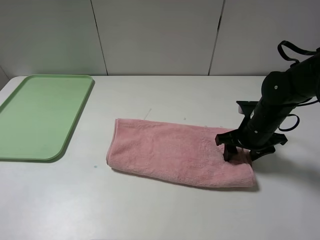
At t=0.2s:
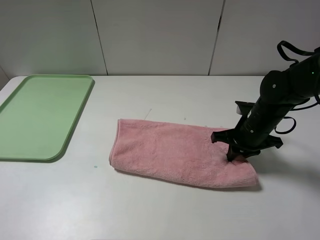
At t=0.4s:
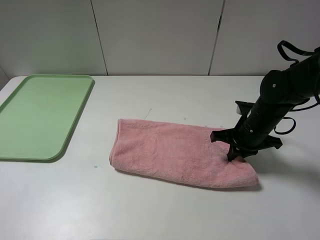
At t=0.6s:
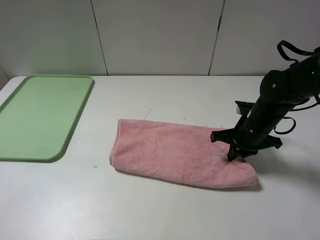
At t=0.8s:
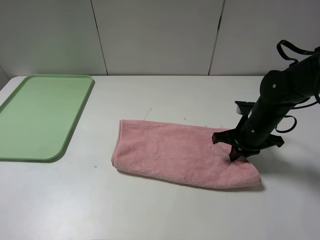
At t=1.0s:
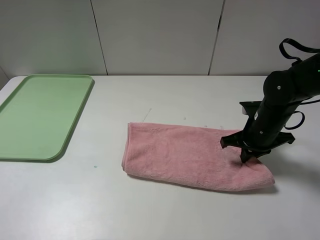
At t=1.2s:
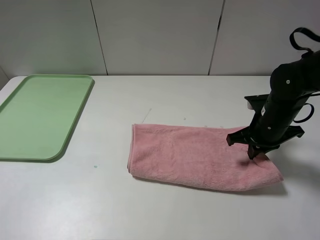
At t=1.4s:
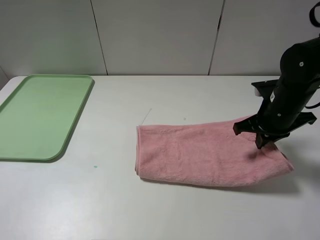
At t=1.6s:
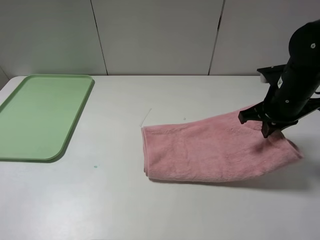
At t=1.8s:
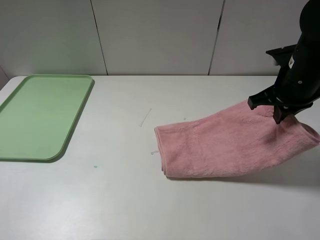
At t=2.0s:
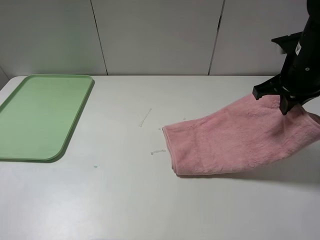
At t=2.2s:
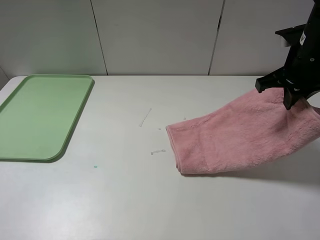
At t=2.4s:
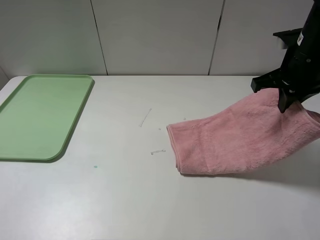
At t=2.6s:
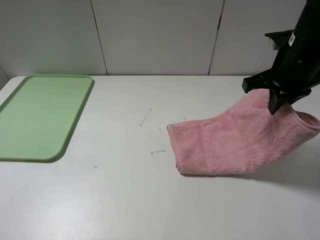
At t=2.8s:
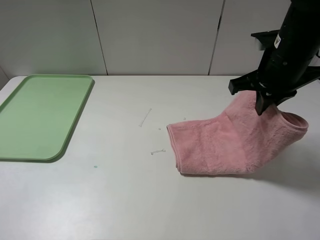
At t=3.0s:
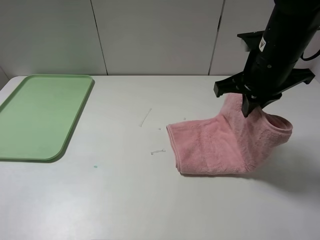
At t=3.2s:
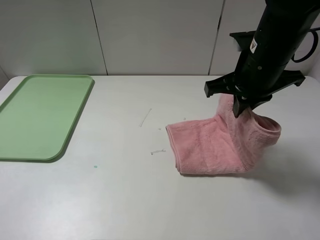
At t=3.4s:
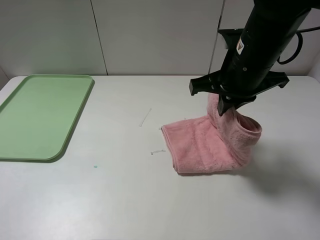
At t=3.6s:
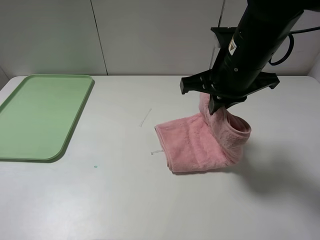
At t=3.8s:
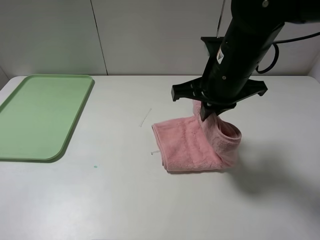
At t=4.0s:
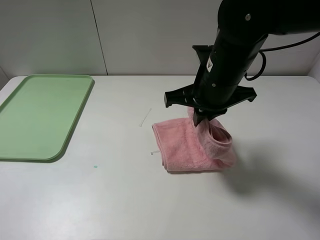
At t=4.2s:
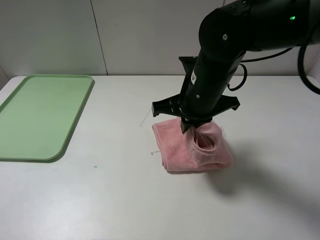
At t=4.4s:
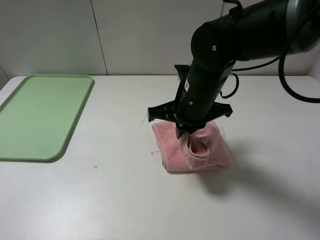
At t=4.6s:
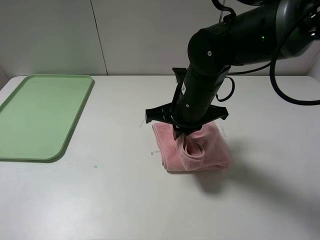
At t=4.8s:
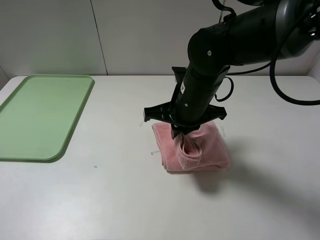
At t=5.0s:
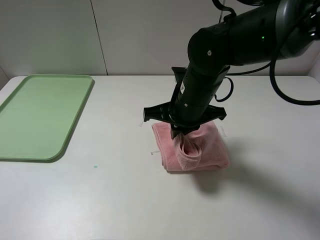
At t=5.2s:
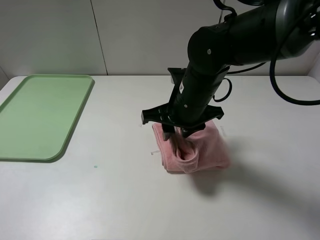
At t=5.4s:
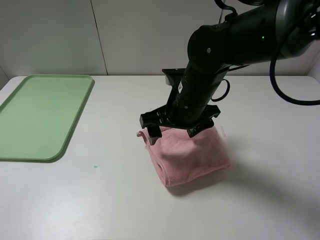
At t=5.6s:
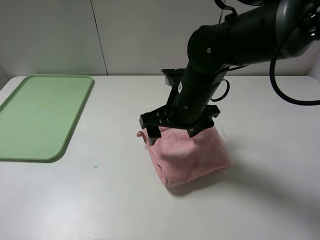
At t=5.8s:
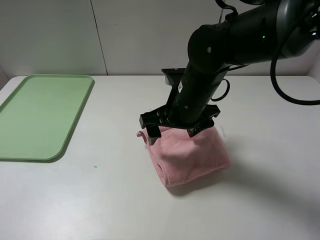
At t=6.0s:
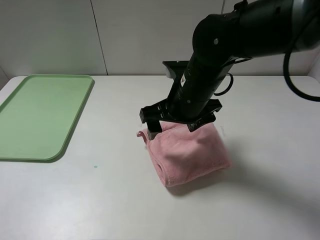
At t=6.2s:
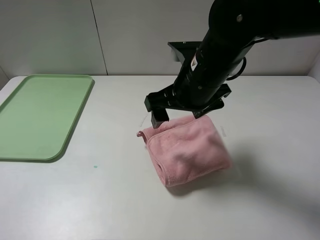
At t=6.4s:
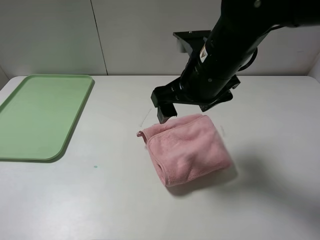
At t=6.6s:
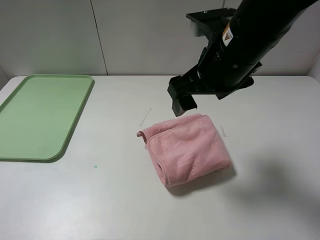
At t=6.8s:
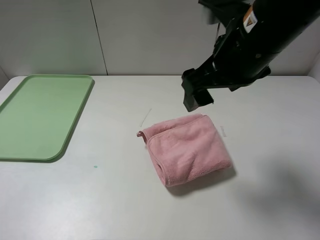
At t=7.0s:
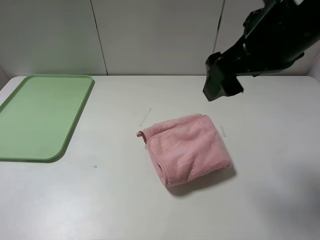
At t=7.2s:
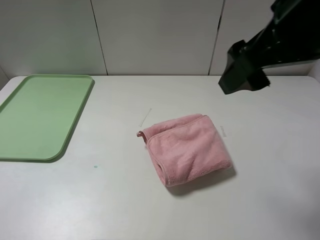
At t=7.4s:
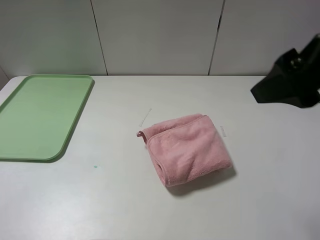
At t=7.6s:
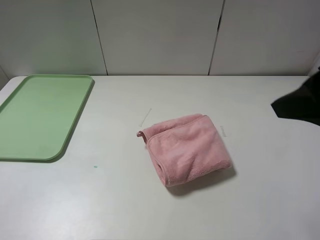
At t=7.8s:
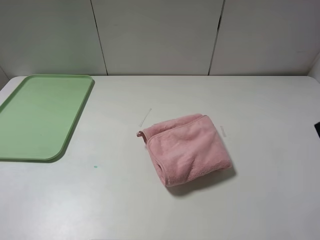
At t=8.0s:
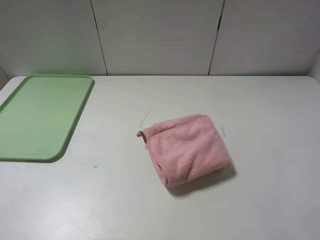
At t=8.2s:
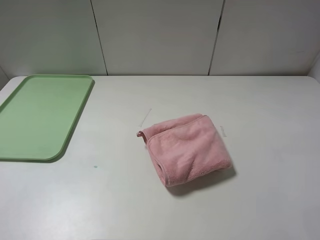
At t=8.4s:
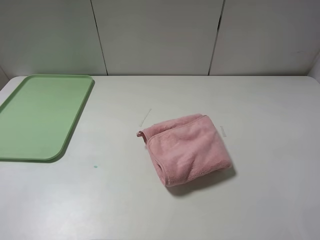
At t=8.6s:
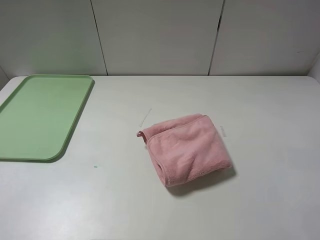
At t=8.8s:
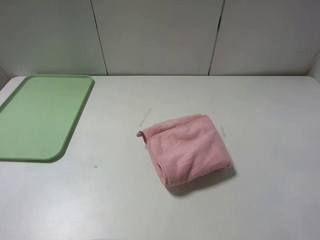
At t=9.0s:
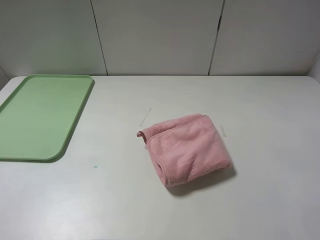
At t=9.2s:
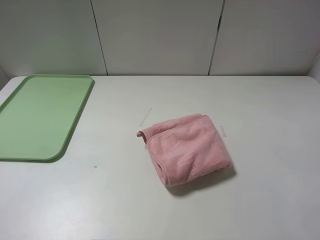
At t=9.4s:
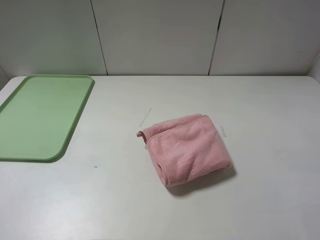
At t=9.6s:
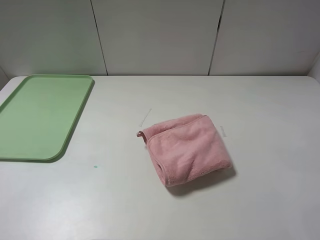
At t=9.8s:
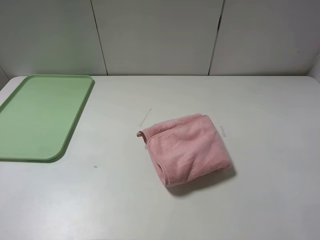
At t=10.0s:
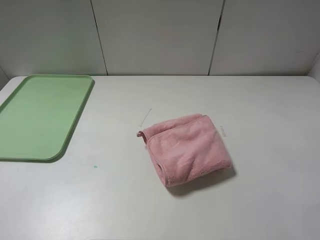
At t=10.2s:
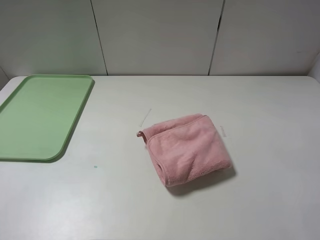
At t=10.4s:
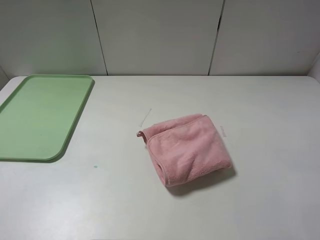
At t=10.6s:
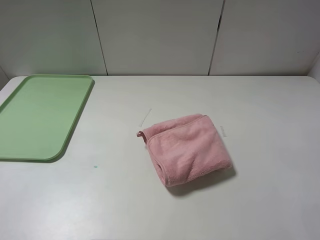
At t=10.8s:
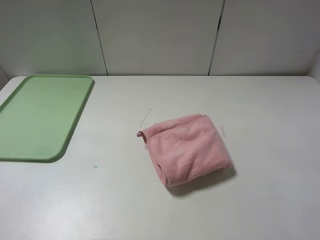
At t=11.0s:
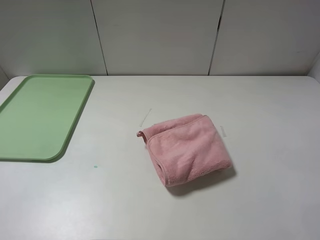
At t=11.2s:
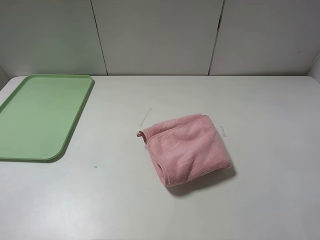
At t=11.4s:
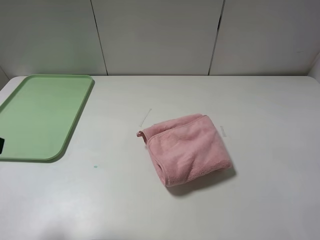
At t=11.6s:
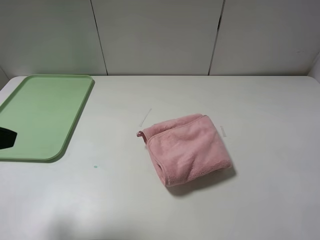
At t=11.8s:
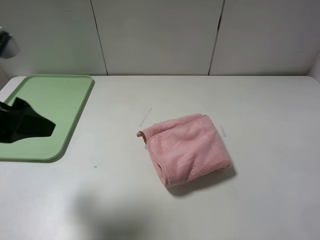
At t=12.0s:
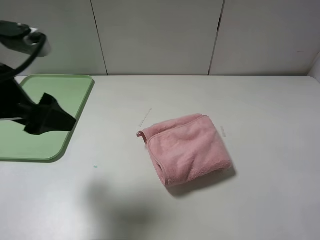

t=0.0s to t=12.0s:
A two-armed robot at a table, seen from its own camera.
Step, t=0.0s to t=5.6s: Fold the pink towel from right to left with right gripper.
t=0.0s to t=1.6s: The right gripper moves upward, some 10 cm, and closes up.
t=1.6s to t=3.0s: The right gripper shifts approximately 10 cm to the left and upward.
t=3.0s to t=4.4s: The right gripper goes approximately 10 cm to the left and downward.
t=4.4s to t=6.0s: The right gripper opens.
t=6.0s to t=7.6s: The right gripper goes about 25 cm to the right, upward and backward.
t=7.6s to t=9.0s: The right gripper is displaced backward, to the right and downward by approximately 15 cm.
t=9.0s to t=10.4s: Neither gripper changes place.
t=10.4s to t=12.0s: The left gripper goes some 20 cm forward and to the right.

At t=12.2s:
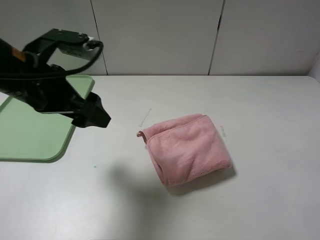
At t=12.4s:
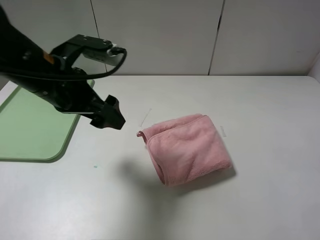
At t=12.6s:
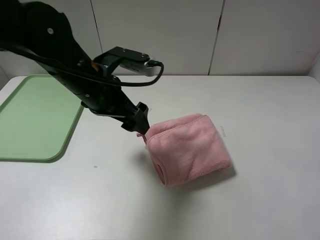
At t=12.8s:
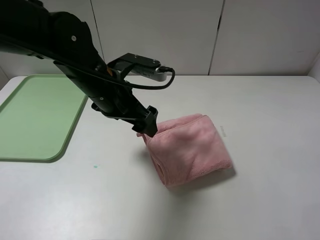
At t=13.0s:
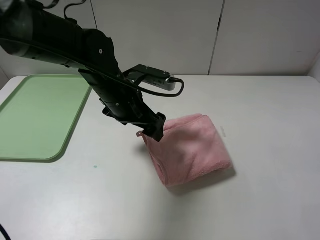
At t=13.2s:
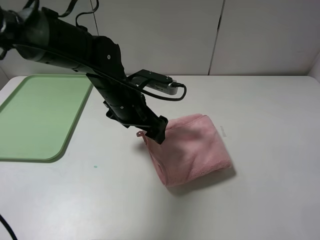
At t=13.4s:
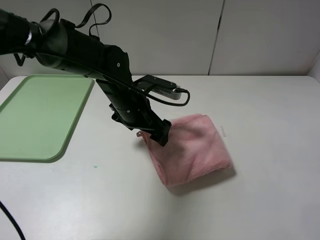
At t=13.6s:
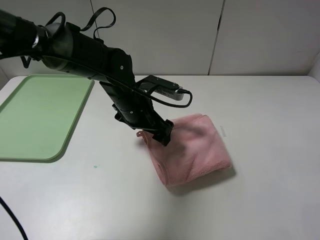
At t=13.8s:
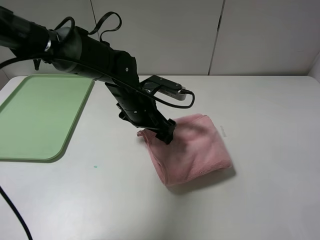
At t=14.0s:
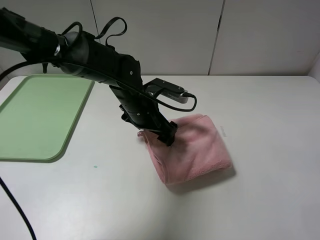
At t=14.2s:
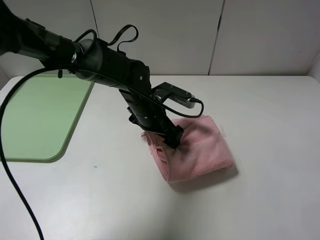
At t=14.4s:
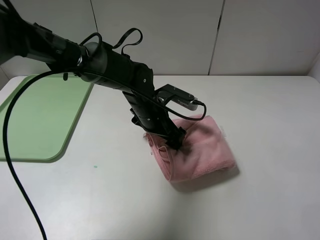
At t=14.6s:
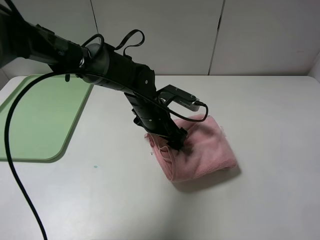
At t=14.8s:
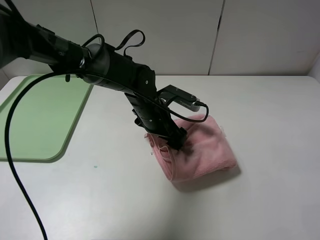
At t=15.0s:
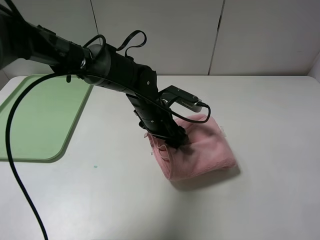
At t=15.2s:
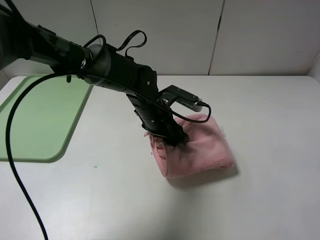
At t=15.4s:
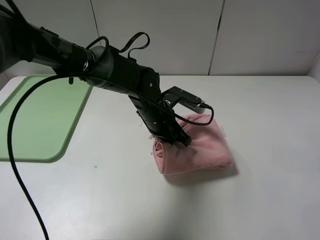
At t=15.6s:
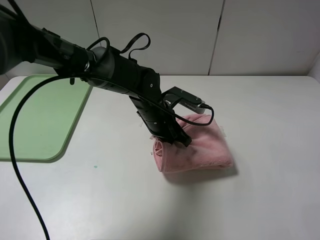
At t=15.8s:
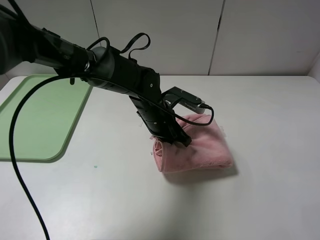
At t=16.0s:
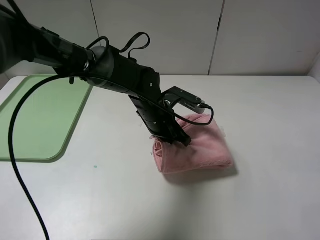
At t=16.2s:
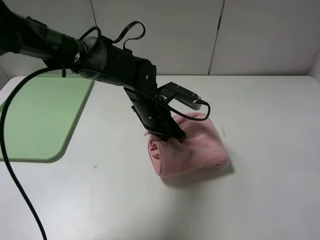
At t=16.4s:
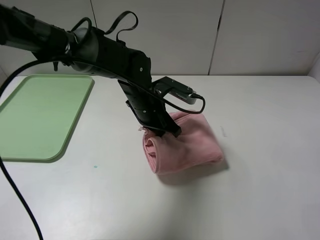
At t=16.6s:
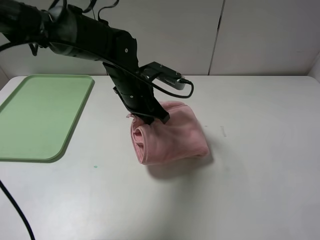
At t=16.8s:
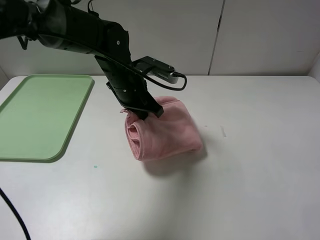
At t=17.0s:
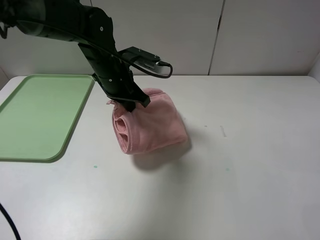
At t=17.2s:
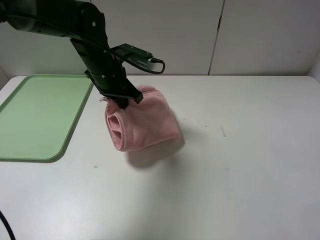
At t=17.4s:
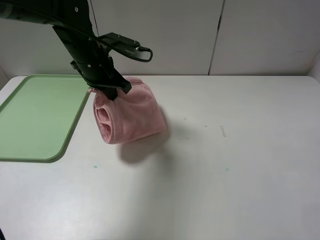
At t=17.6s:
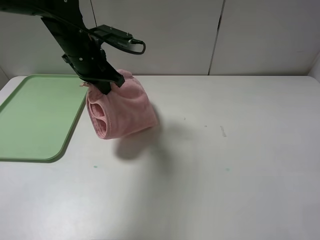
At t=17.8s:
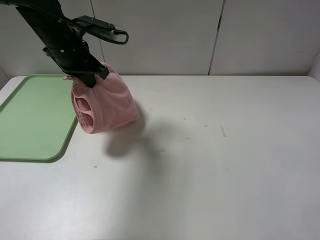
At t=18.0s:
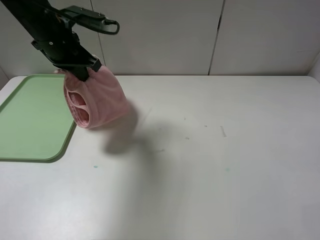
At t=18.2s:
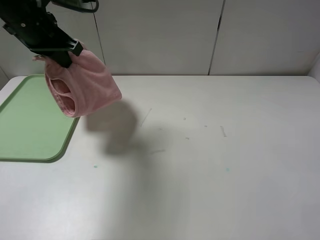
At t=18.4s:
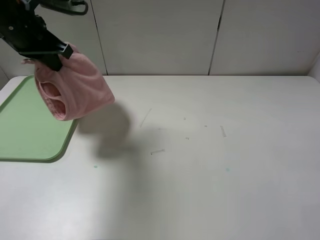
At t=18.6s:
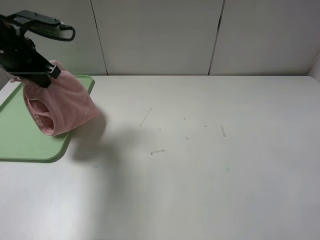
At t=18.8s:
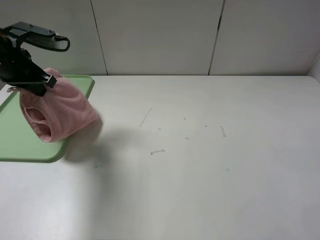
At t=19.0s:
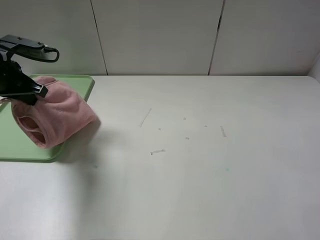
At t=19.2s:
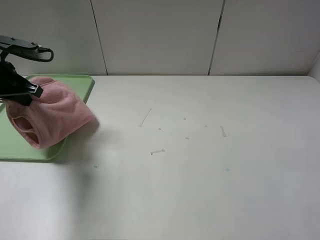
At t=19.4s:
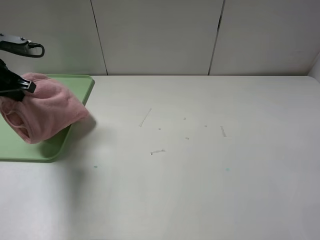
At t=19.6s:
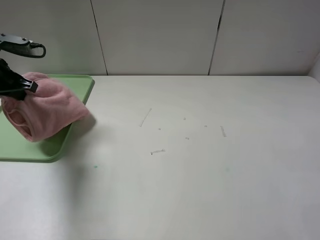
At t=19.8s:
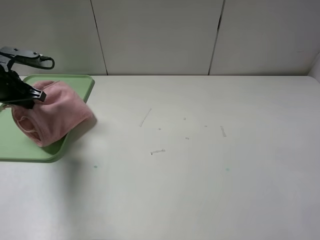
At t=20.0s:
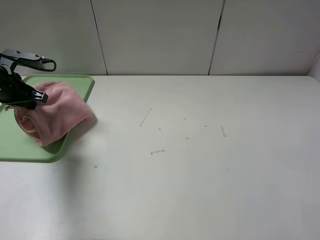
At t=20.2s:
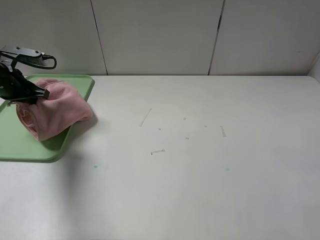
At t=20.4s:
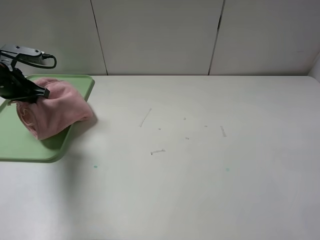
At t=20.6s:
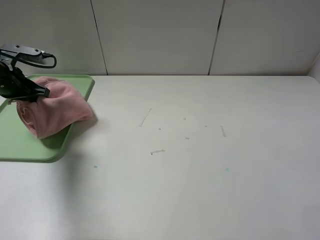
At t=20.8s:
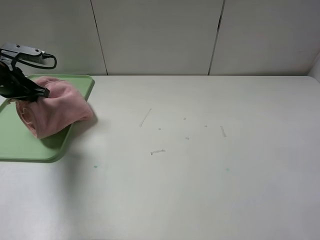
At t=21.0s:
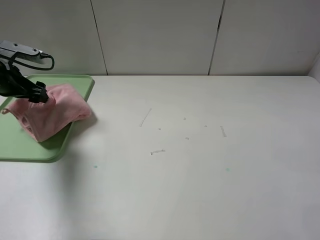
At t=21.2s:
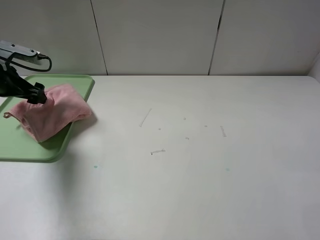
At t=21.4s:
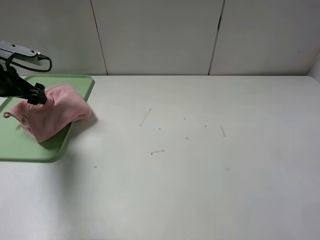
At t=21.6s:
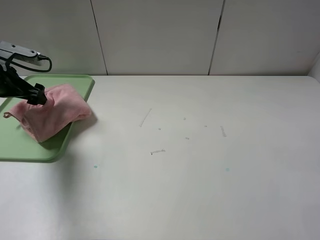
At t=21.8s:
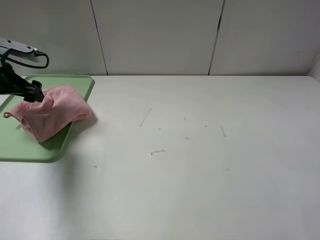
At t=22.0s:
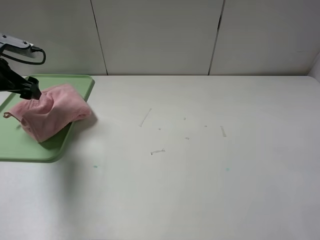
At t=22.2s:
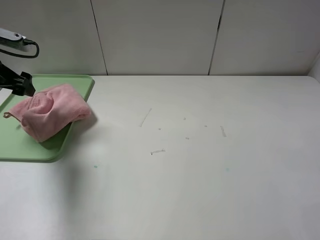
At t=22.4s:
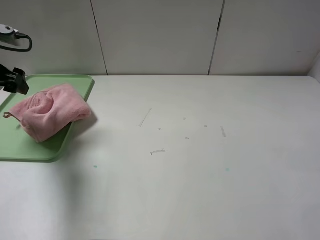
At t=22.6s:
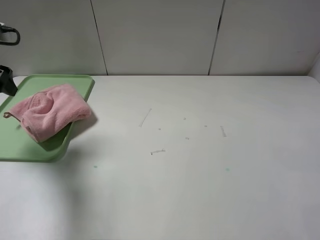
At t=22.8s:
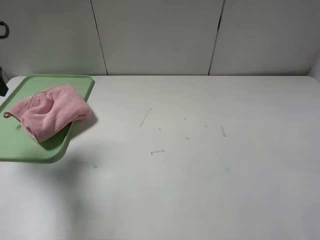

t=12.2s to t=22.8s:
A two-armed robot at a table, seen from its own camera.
Step, t=12.2s to t=21.2s: Place the folded pink towel on the tray with the left gripper.
t=12.2s to t=13.8s: The left gripper travels to the right, downward and forward by approximately 20 cm.
t=13.8s to t=15.2s: The left gripper closes up.
t=15.2s to t=16.8s: The left gripper shifts about 10 cm upward and to the left, and closes up.
t=16.8s to t=18.2s: The left gripper shifts about 20 cm to the left and upward.
t=18.2s to t=19.8s: The left gripper is displaced downward and to the left by some 15 cm.
t=19.8s to t=21.2s: The left gripper opens up.
t=21.2s to t=22.8s: The left gripper is displaced upward and backward by some 15 cm.
